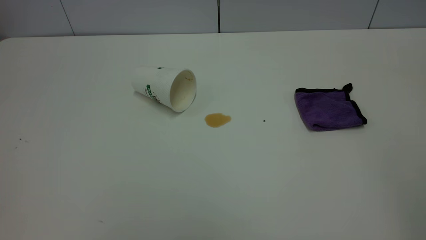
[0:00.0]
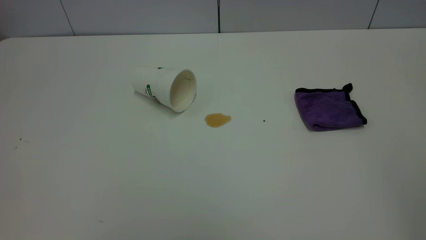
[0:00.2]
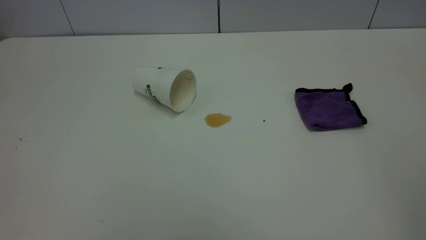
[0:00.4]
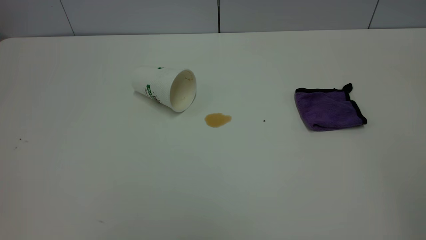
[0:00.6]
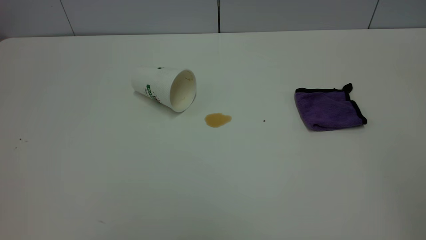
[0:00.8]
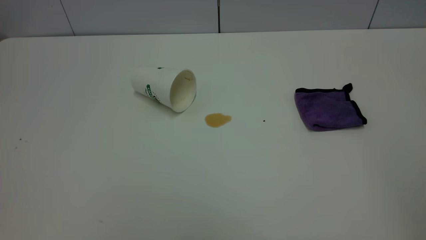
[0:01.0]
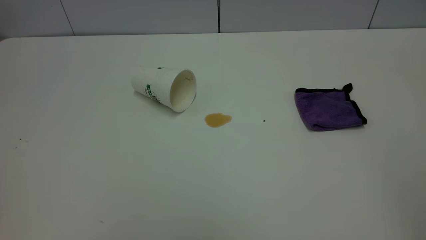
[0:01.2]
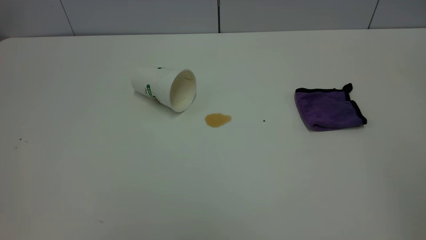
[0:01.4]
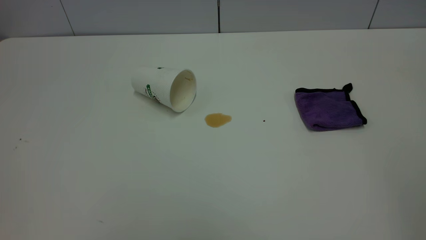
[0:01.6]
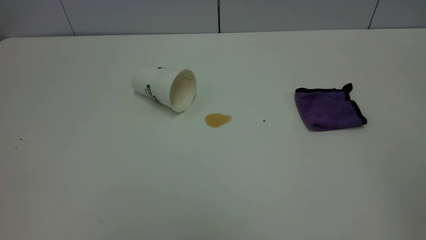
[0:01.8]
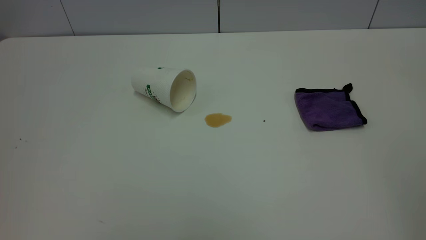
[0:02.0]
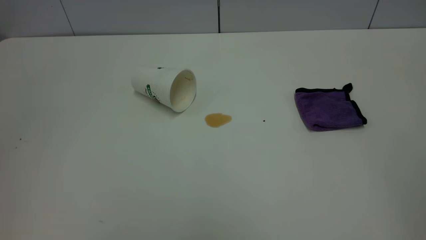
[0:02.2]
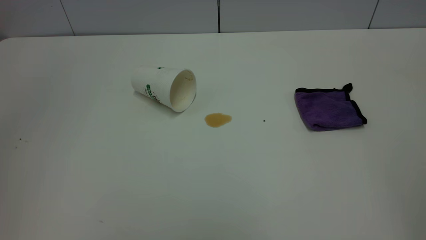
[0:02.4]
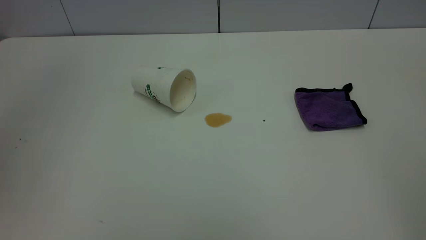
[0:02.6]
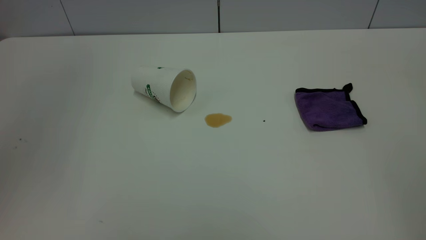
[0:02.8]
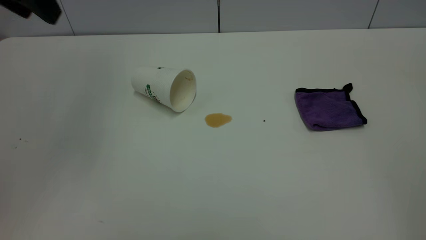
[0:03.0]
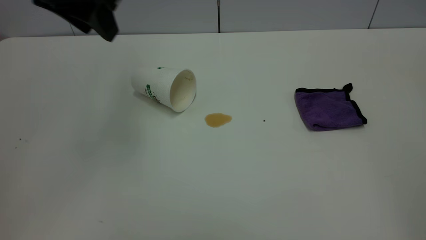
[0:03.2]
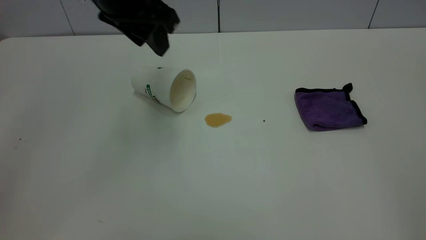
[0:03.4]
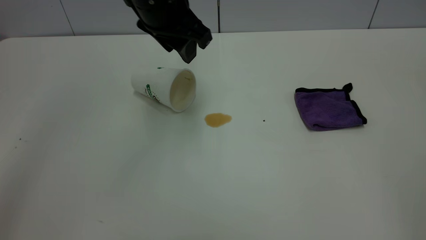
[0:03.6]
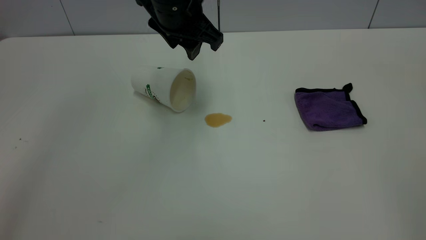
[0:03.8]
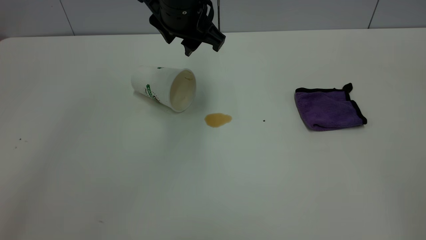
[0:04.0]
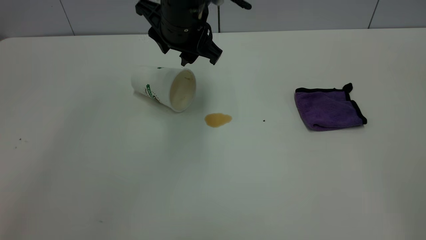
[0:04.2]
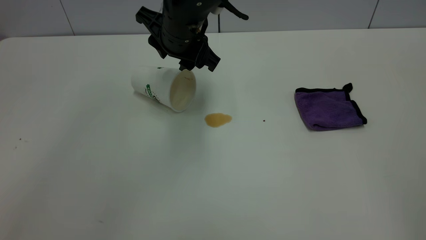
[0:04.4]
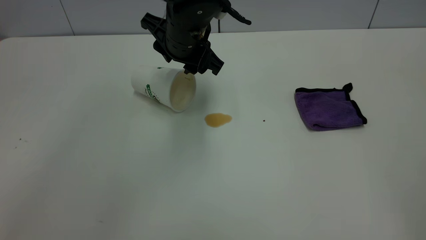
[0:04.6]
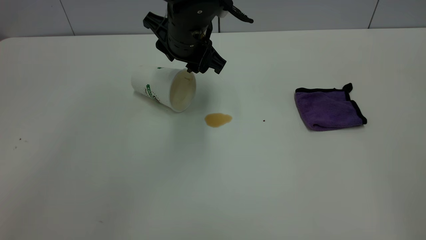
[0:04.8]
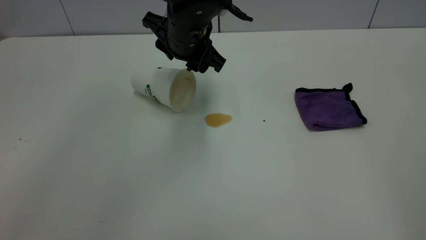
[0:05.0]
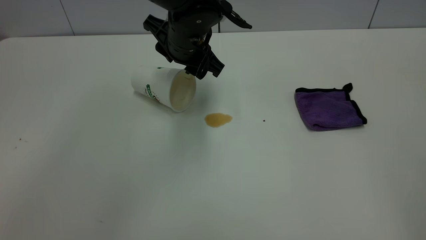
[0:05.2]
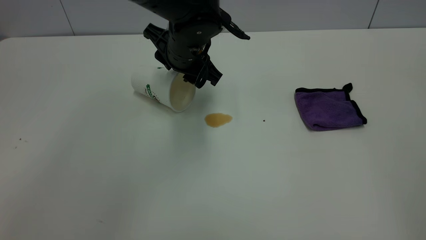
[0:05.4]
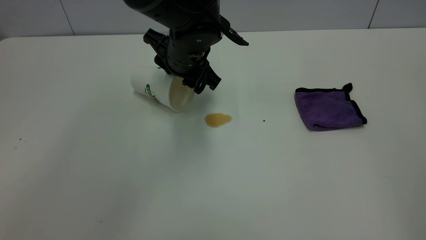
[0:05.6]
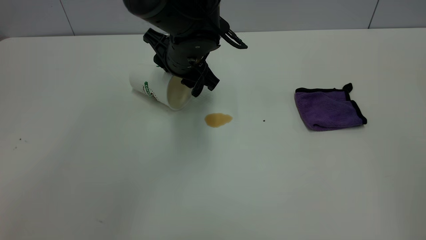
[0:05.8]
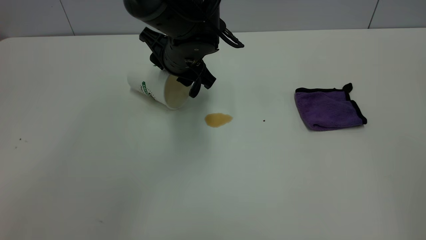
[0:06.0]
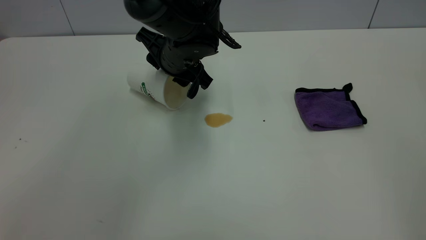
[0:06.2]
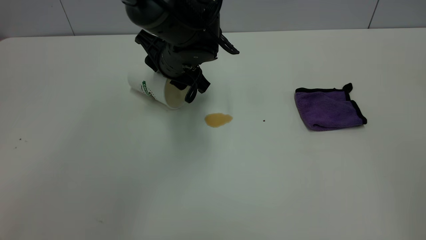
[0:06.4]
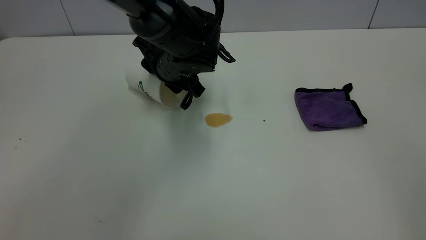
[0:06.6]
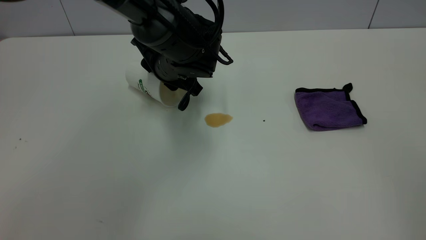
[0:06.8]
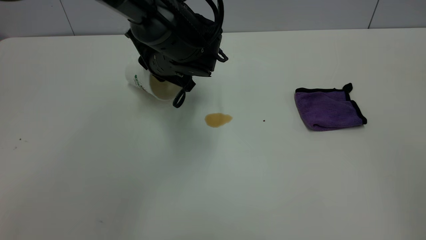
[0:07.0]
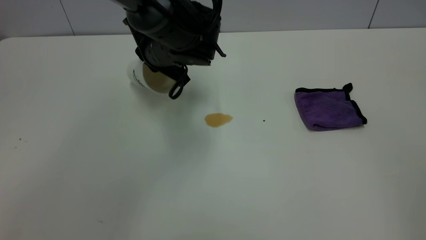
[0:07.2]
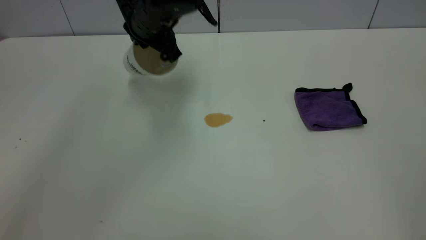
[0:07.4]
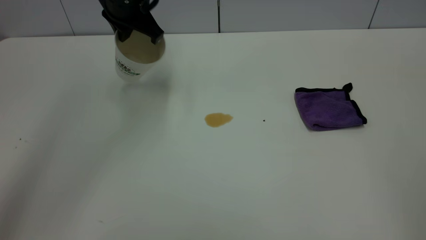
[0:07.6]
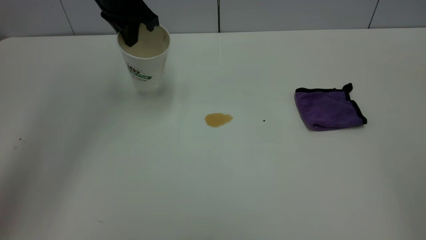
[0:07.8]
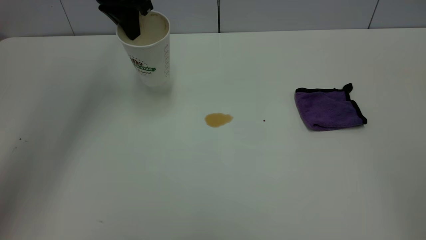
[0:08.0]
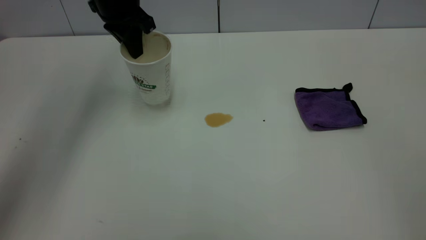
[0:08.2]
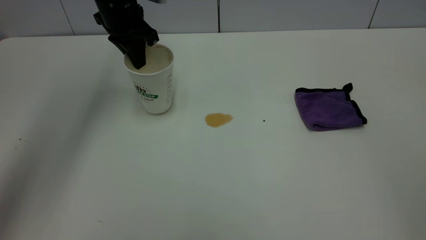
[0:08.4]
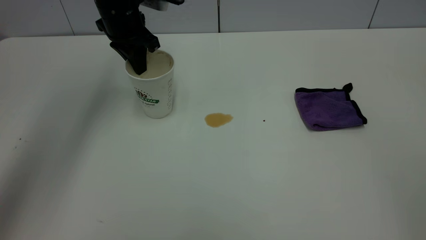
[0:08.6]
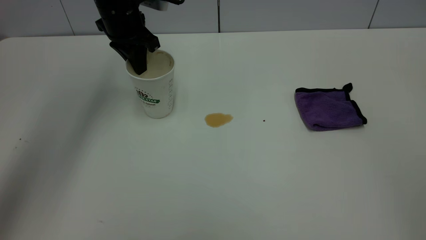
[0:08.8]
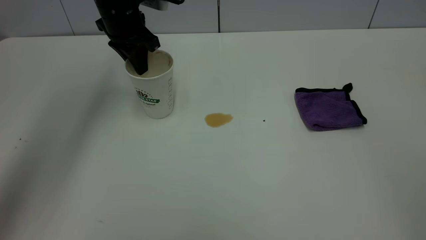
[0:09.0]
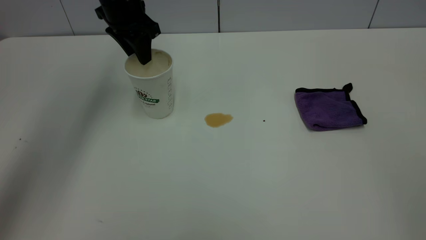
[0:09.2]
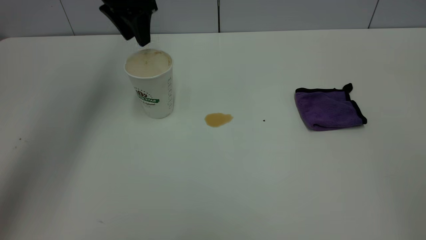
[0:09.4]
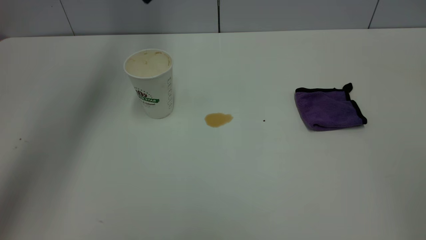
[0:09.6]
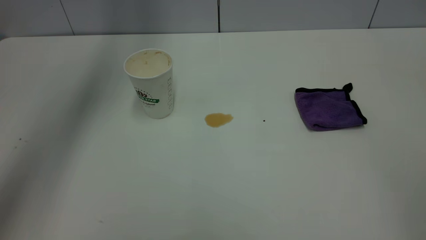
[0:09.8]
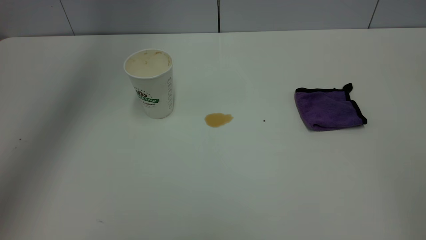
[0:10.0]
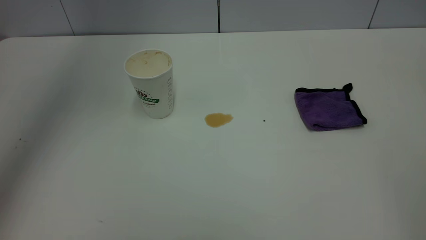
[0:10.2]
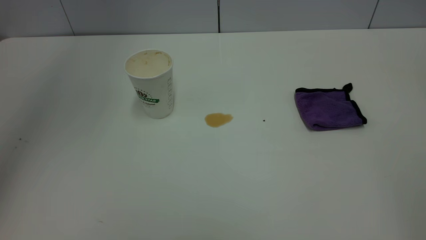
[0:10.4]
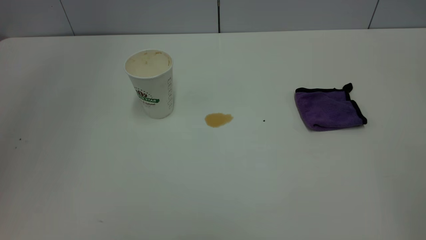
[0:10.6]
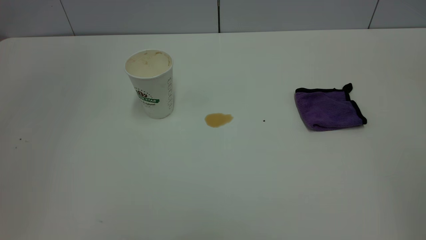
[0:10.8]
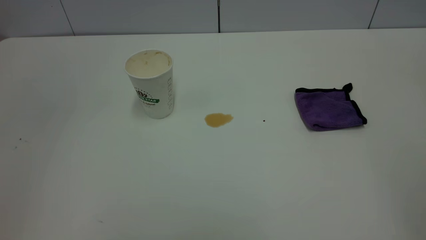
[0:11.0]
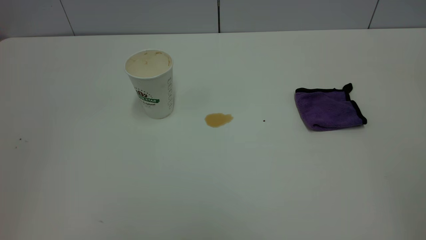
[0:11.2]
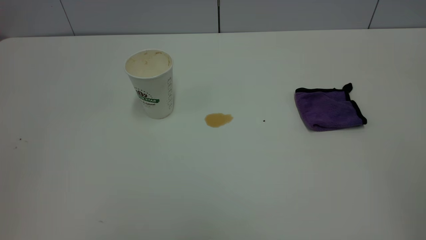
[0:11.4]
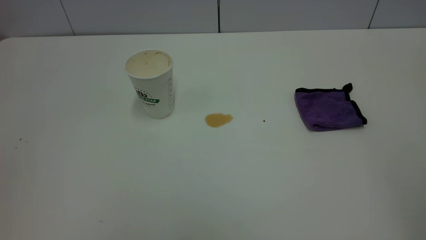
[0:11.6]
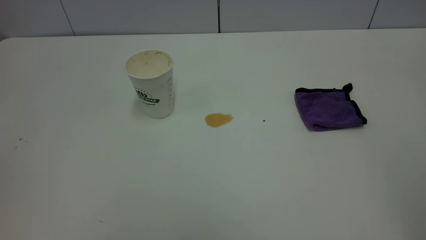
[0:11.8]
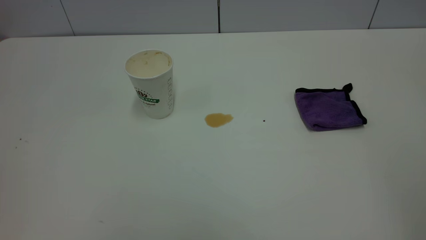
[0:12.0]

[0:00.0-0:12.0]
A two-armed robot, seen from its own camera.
Task of the whole recording: the left gripper pick up the fallen cup and place it upright, the right gripper grasp the purple rag and wipe the tea stain on the table, the right gripper put the purple rag back in its original position.
Step, 0:00.0 to 0:09.4: Stand the paper cup upright.
0:00.0 to 0:01.6: The two grippers keep their place.
0:01.6 to 0:03.0: The left gripper shifts some 30 cm forward.
0:03.0 to 0:04.4: The left gripper travels to the right, downward and forward by approximately 25 cm.
0:04.4 to 0:06.0: The grippers stay close to where they were, moving slightly.
0:06.0 to 0:07.6: The left gripper moves upward and to the left, about 15 cm, and closes its fingers.
0:07.6 to 0:09.0: The left gripper moves about 5 cm, and opens up.
0:09.0 to 0:10.4: The left gripper moves upward and backward, approximately 35 cm, and opens.
0:10.4 to 0:12.0: The left gripper shifts some 35 cm backward and downward.

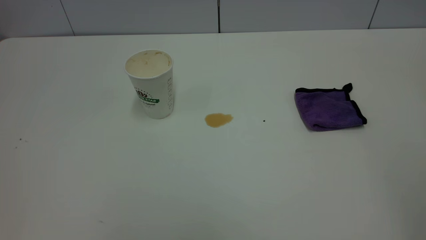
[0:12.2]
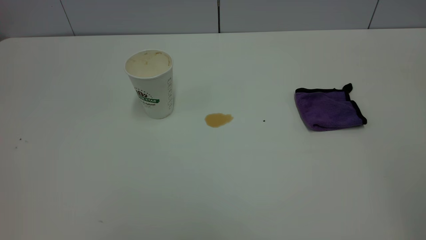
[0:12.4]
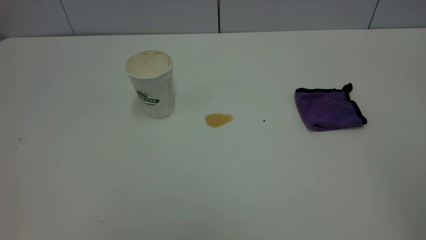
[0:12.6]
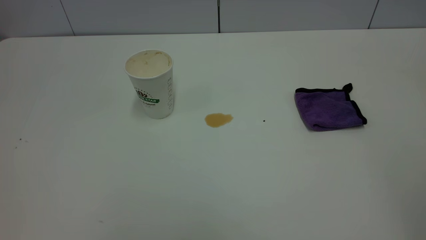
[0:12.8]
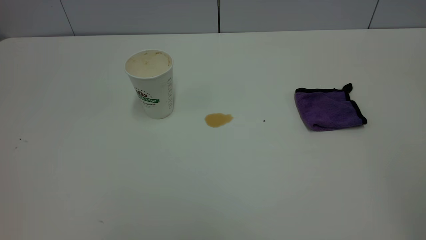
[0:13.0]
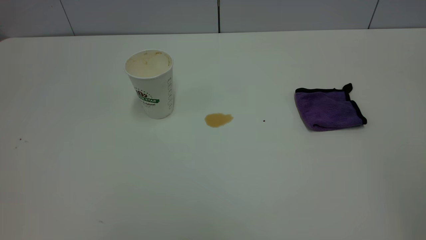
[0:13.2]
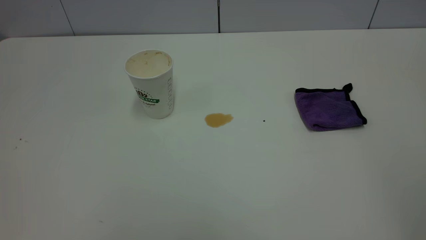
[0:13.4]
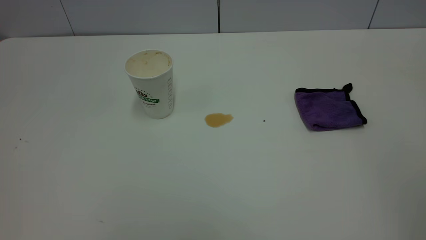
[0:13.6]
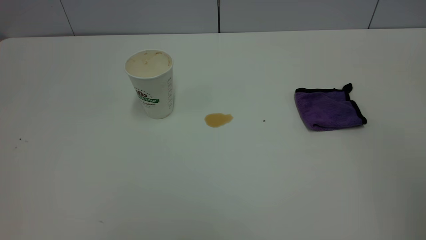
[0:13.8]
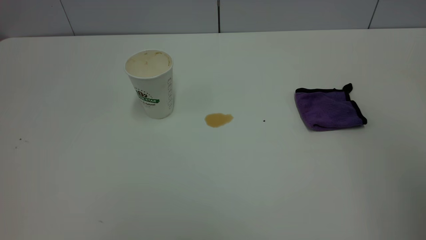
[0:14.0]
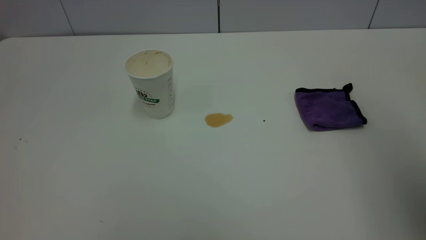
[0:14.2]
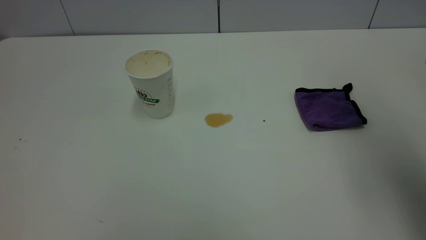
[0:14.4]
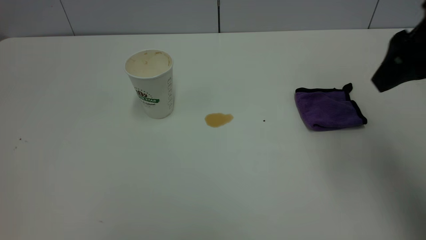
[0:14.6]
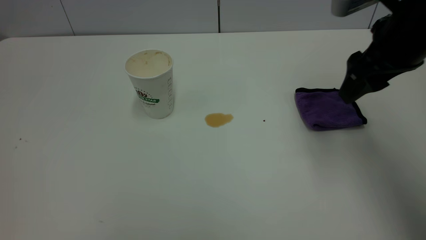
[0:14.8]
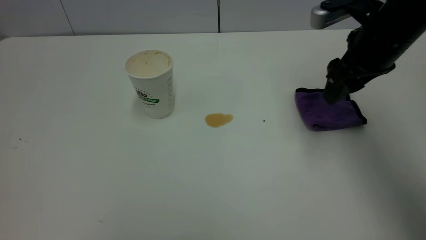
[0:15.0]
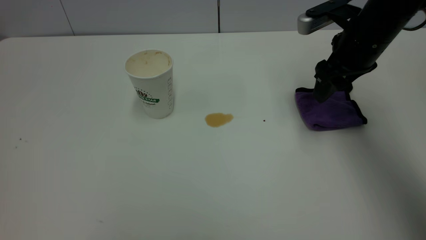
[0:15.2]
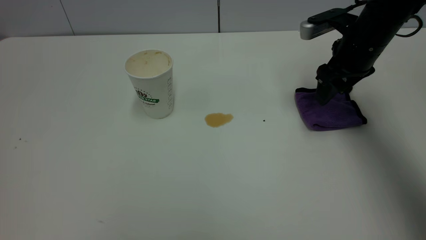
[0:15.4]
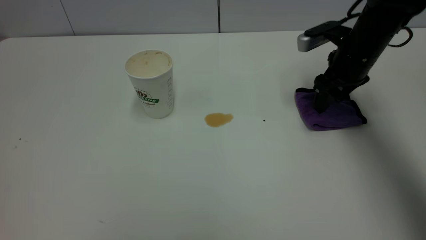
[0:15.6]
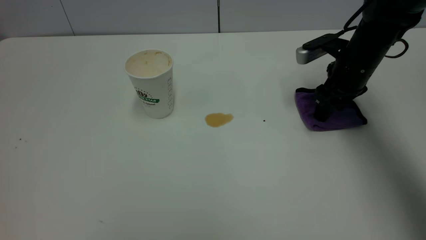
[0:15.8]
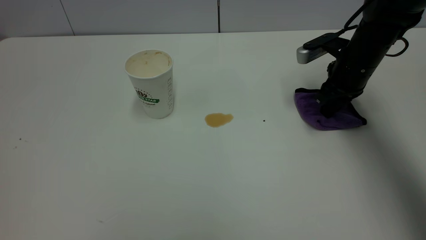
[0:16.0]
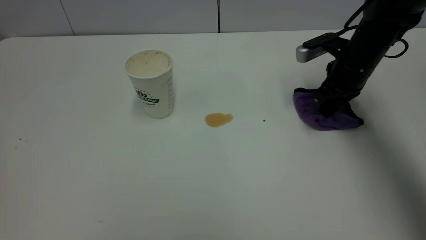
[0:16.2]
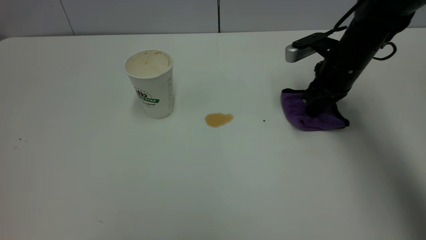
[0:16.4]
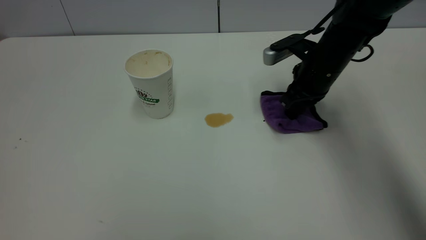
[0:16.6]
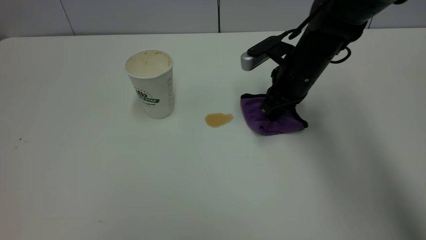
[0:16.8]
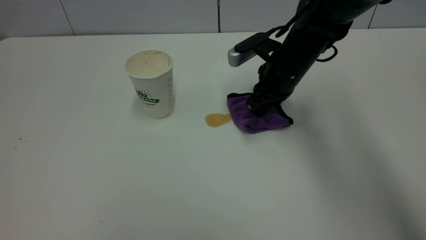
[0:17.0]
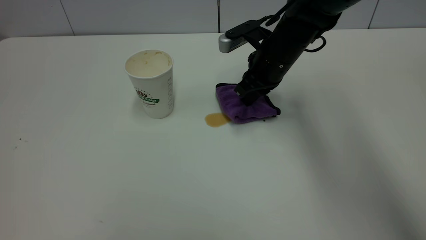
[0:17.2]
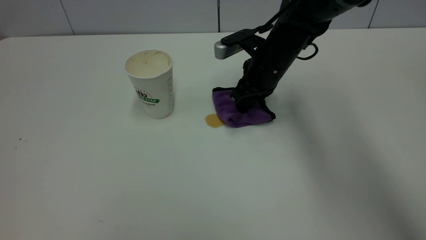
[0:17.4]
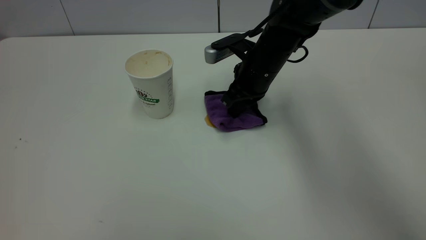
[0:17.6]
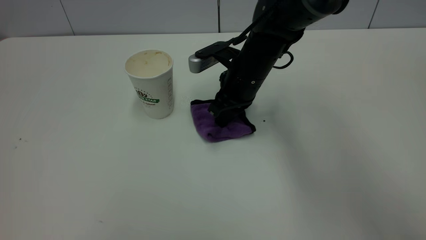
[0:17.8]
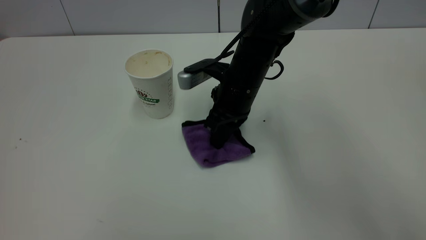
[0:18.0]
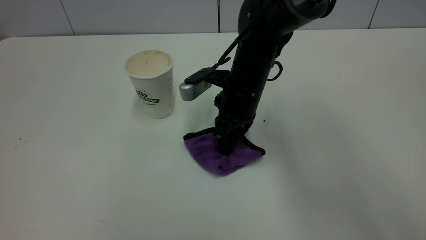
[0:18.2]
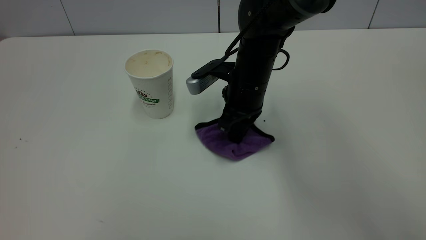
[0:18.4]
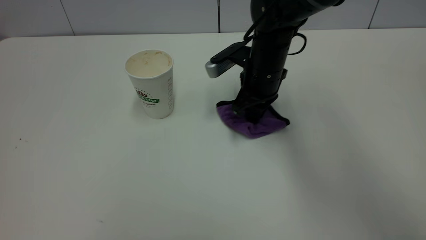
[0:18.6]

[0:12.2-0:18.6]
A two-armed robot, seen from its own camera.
Task of the whole recording: the left gripper pick up the fallen cup and place it upright, the right gripper grasp the purple rag and wipe the tea stain on the table, the right gripper put the purple rag back in its original position.
0:13.8 to 0:15.4: The right gripper moves forward and downward, some 40 cm.
0:15.4 to 0:17.0: The right gripper moves to the left, approximately 10 cm, and closes its fingers.
0:17.0 to 0:18.6: The right gripper travels to the left and back again, approximately 10 cm each way.
